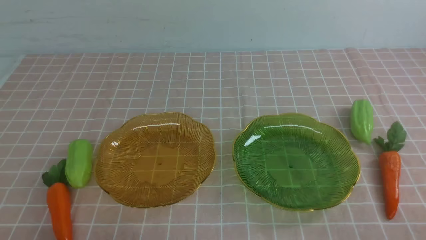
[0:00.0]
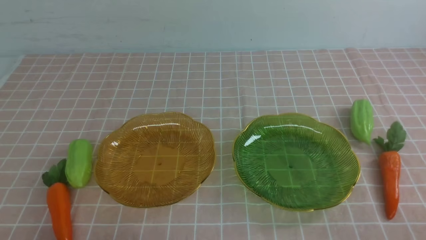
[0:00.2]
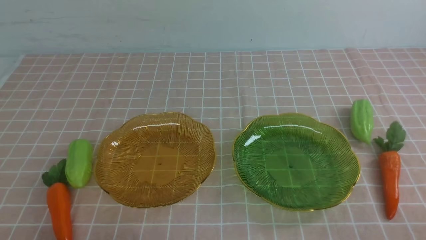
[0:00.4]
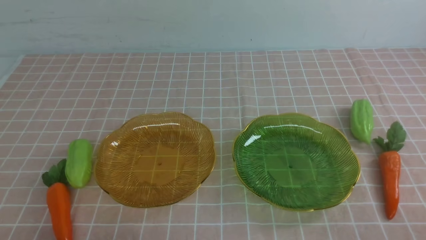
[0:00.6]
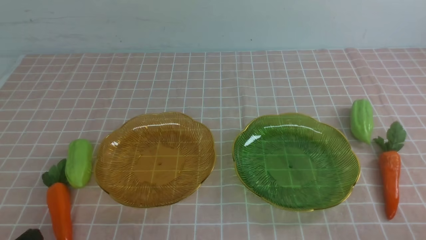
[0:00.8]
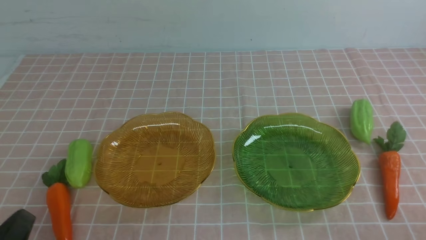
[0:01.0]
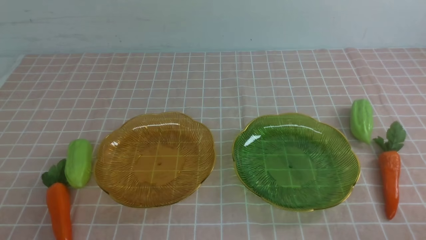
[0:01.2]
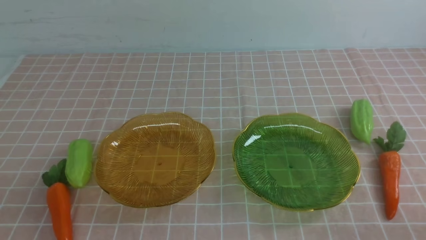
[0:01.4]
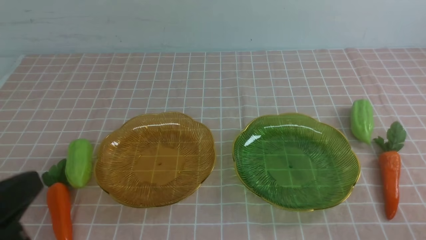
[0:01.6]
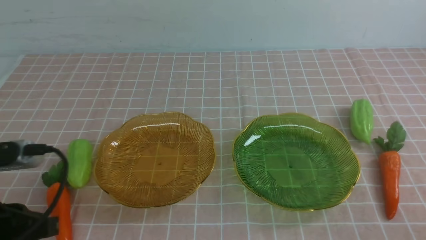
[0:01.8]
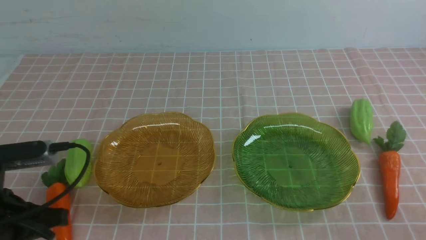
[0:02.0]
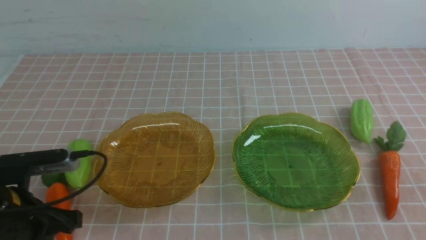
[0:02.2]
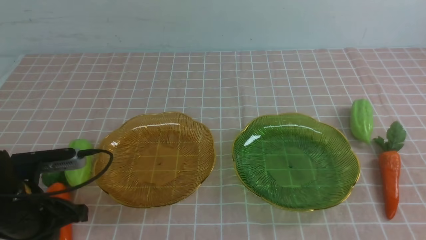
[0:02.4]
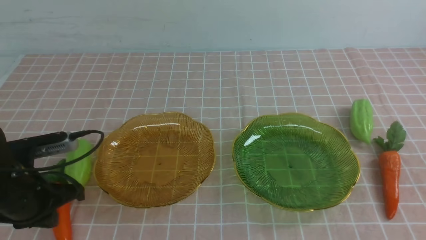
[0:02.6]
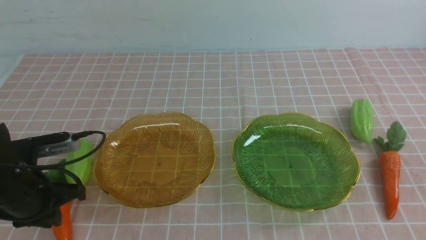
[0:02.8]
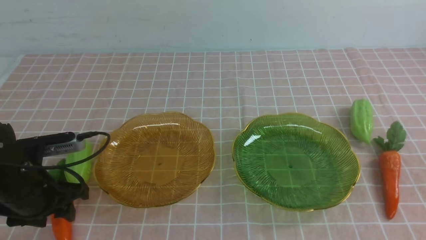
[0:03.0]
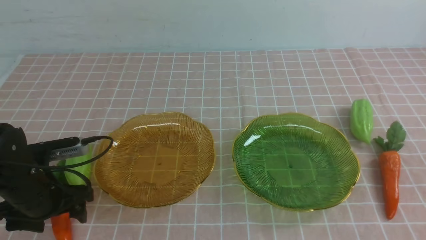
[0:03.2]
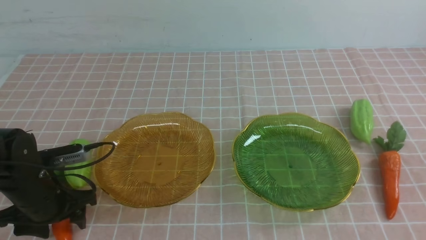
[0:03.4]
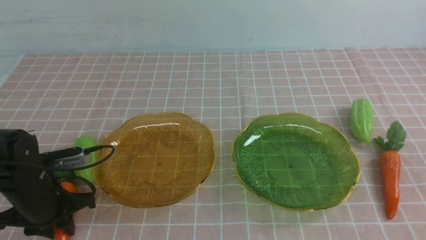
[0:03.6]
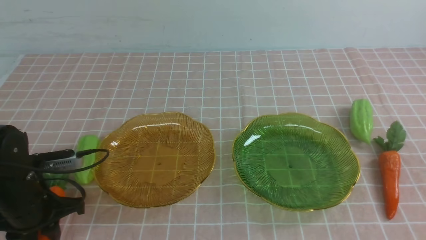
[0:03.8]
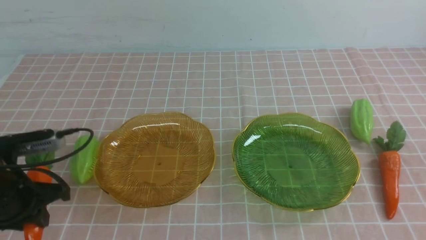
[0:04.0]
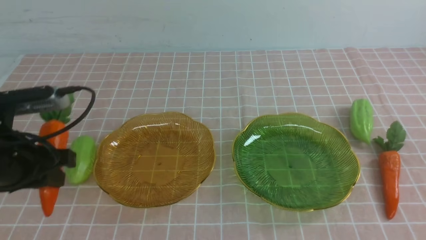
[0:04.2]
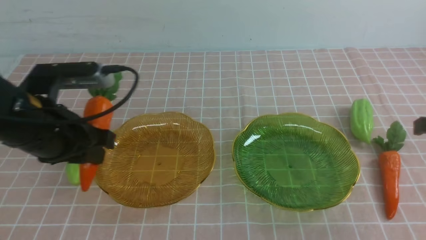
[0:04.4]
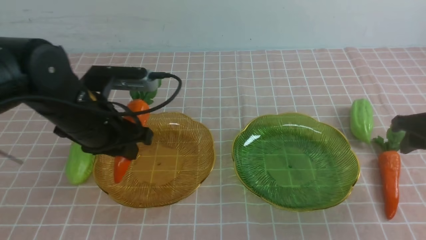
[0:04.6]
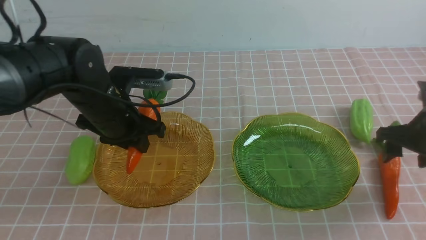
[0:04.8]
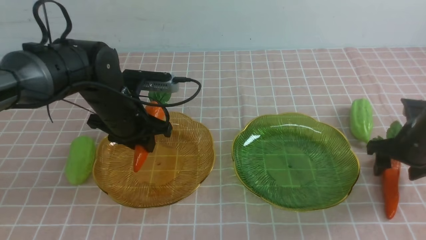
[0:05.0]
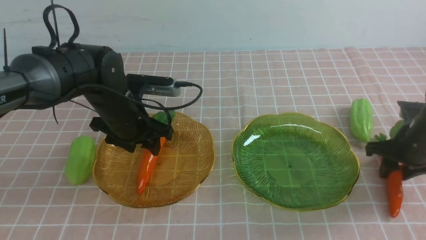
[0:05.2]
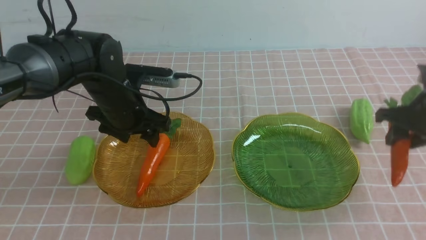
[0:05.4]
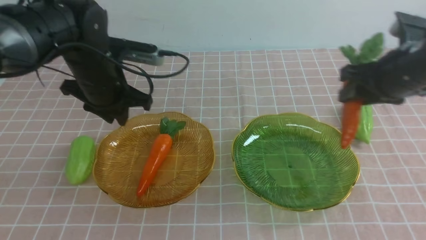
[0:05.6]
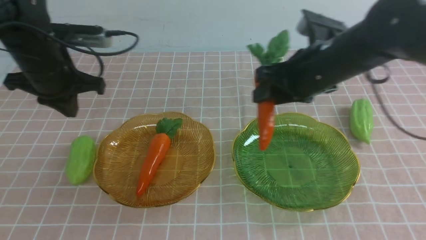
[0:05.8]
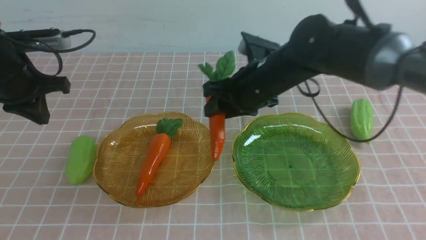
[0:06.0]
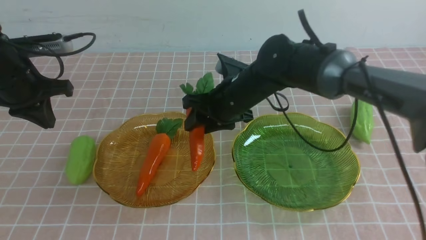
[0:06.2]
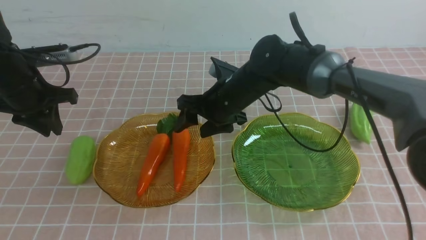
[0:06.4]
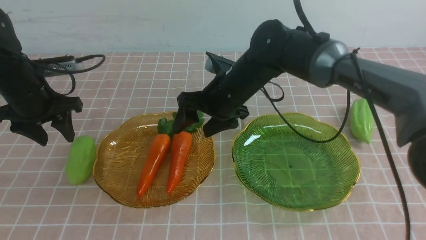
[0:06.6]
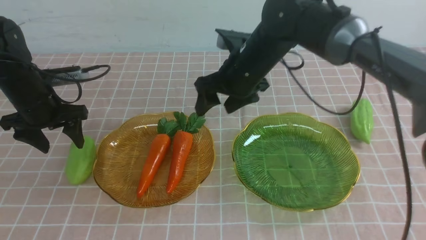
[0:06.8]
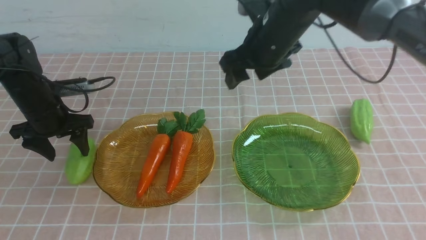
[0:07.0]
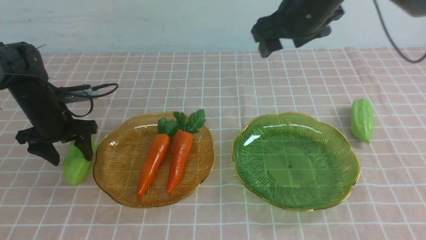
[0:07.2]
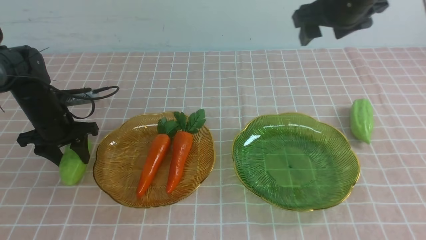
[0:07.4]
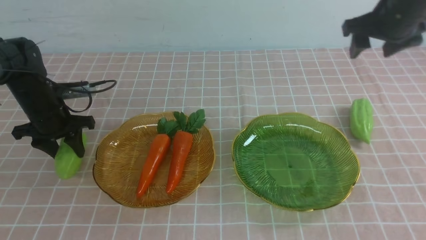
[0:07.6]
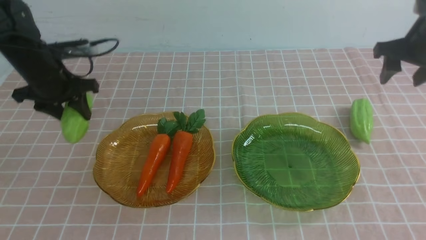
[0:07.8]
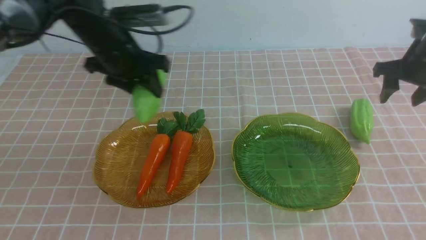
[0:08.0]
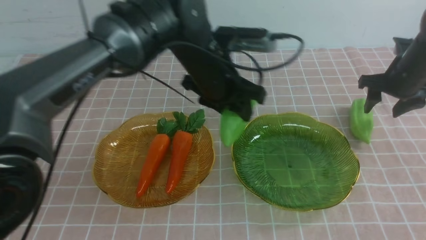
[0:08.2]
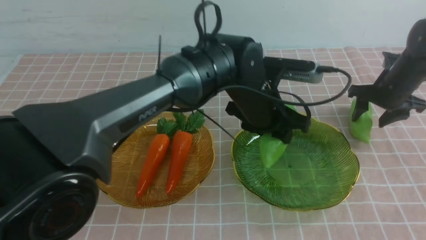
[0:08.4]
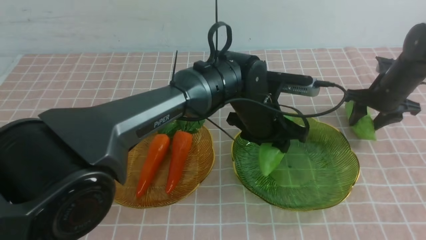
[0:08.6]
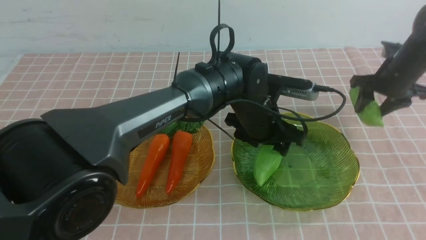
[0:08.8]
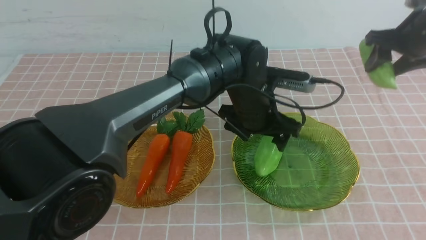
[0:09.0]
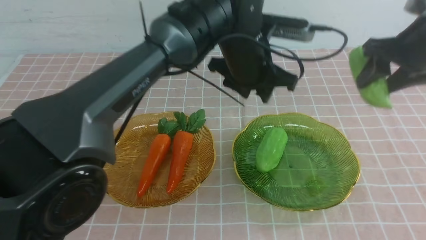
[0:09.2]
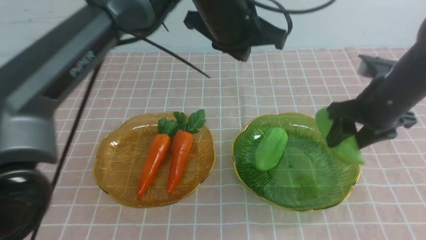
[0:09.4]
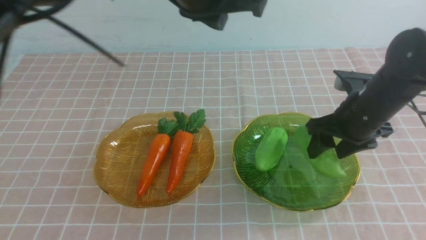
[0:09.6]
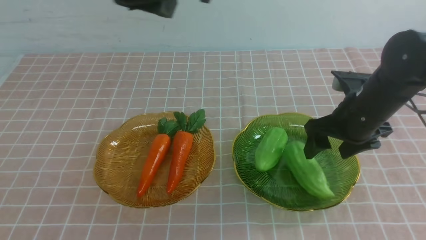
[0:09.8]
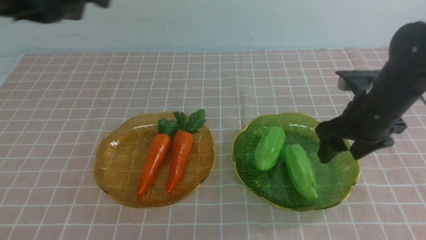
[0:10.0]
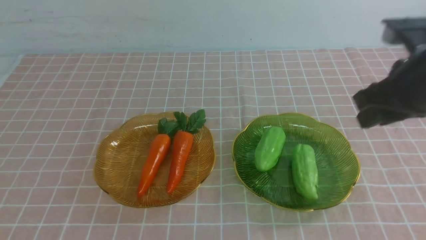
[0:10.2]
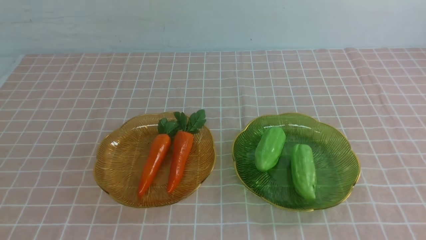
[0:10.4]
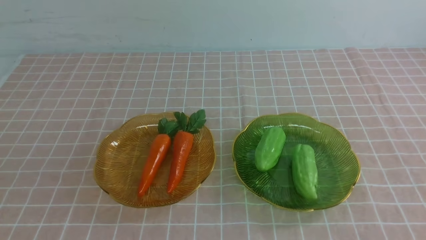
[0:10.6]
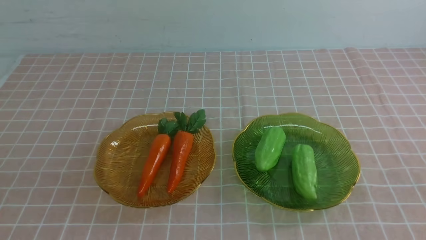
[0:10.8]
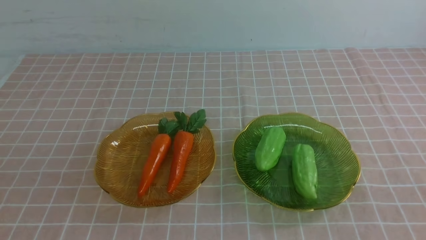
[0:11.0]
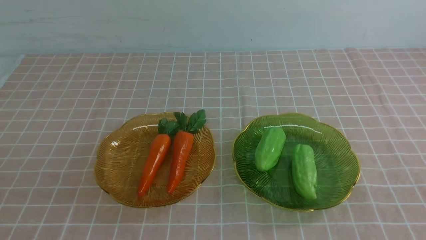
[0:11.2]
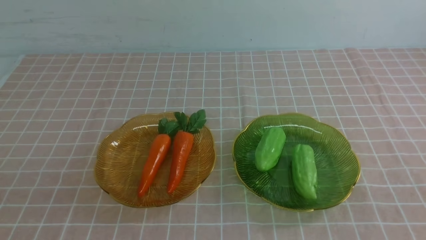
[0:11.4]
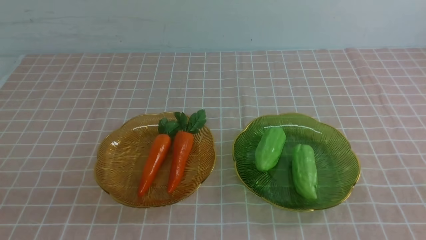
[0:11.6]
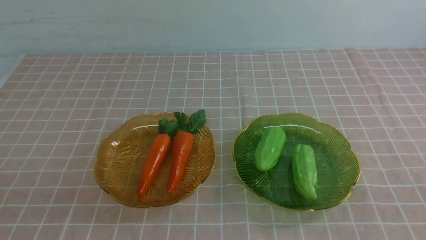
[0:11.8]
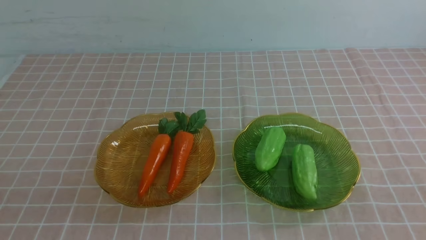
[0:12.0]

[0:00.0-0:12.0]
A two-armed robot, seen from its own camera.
Step, 0:00.0 to 0:05.2: use the left arm to grab a carrot and put it into the left plate.
Step, 0:05.4 to 0:06.6: use the right arm to grab a carrot and put it into the left plate.
Step, 0:06.8 to 0:08.8: use the left arm to grab a chayote and put it into the right plate.
Step, 0:09.0 to 0:09.8: use the right arm to grab a chayote and put it into the right plate.
0:00.0 to 0:01.6: The left gripper goes approximately 10 cm upward.
0:01.6 to 0:03.0: The left gripper moves forward and downward, about 20 cm, and opens up.
0:03.0 to 0:04.4: The left gripper is displaced upward and to the right by roughly 10 cm.
0:04.4 to 0:06.0: The left gripper travels forward and to the left by approximately 15 cm. Meanwhile the right gripper goes approximately 30 cm to the left and forward, and opens.
0:06.0 to 0:07.6: The grippers both shift to the right by roughly 30 cm. The left gripper opens, then closes once more.
0:07.6 to 0:09.0: The right gripper moves backward and to the left, roughly 15 cm. The left gripper goes about 15 cm upward and backward, and closes up.
0:09.0 to 0:10.4: The right gripper goes roughly 35 cm backward, and closes; the left gripper moves backward and to the left, approximately 35 cm.
